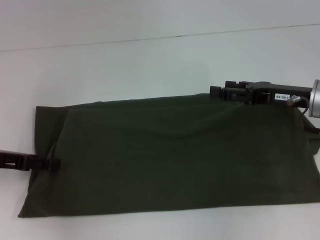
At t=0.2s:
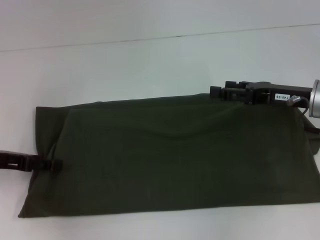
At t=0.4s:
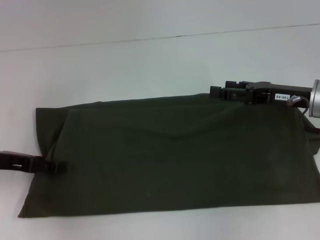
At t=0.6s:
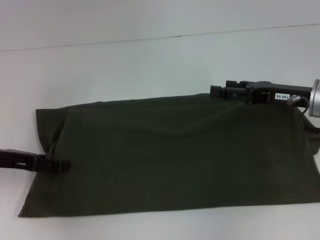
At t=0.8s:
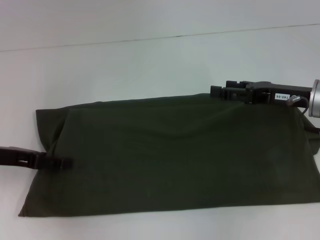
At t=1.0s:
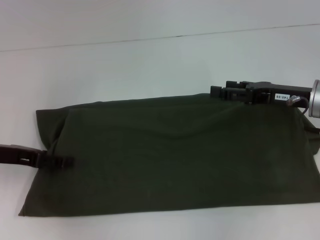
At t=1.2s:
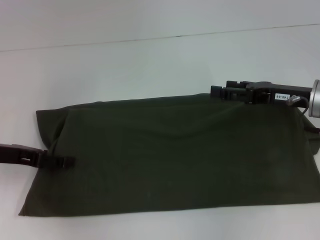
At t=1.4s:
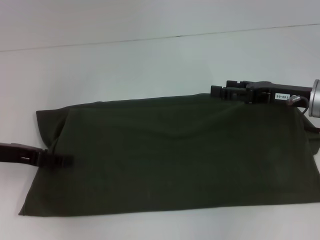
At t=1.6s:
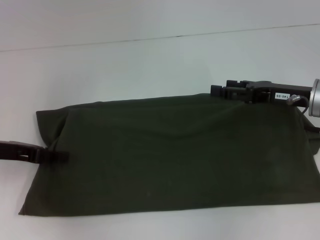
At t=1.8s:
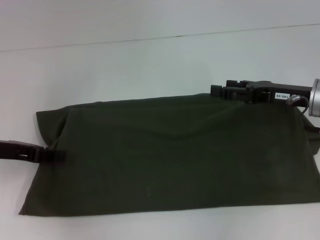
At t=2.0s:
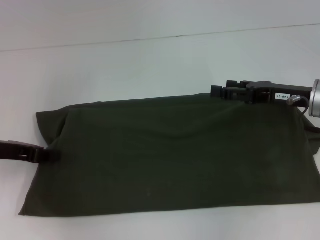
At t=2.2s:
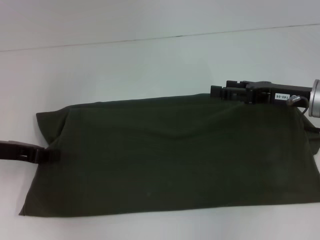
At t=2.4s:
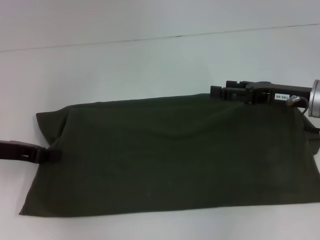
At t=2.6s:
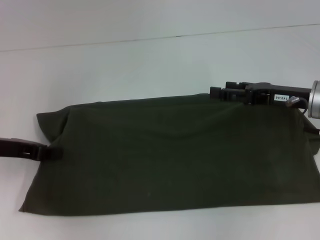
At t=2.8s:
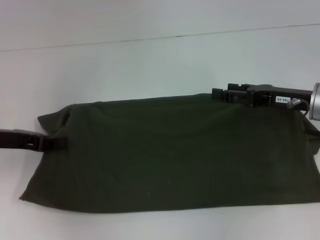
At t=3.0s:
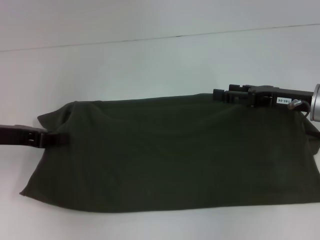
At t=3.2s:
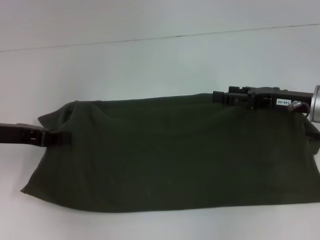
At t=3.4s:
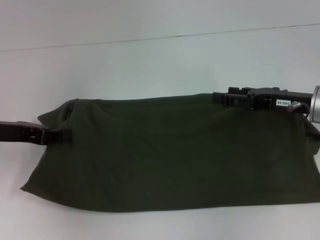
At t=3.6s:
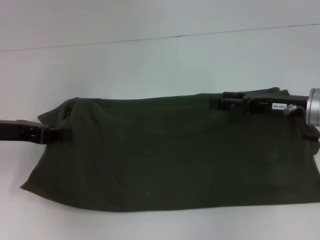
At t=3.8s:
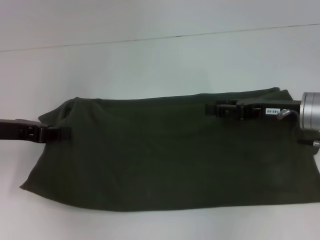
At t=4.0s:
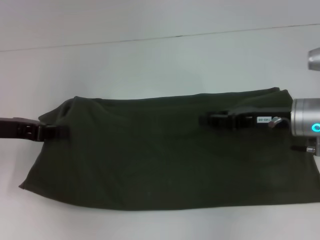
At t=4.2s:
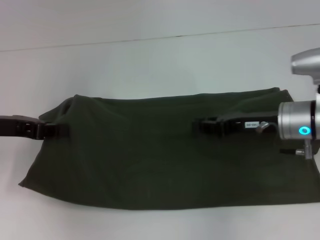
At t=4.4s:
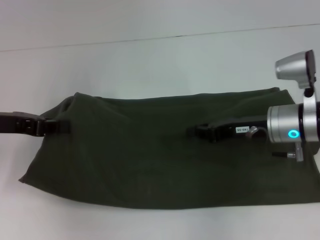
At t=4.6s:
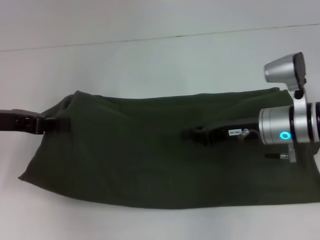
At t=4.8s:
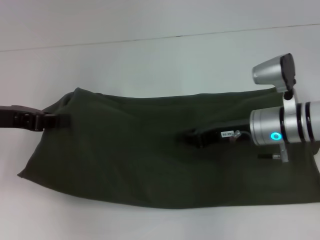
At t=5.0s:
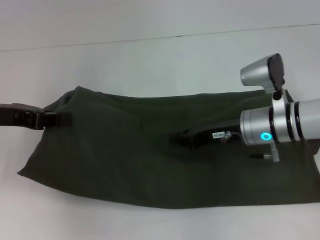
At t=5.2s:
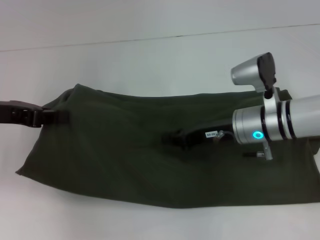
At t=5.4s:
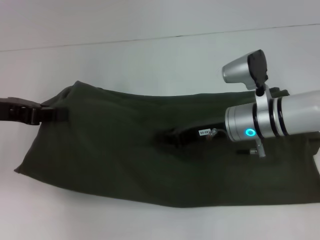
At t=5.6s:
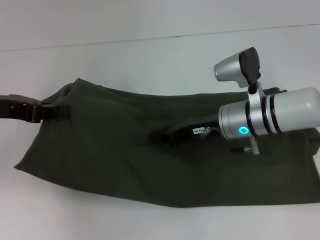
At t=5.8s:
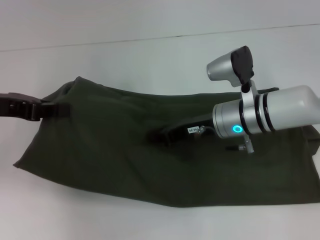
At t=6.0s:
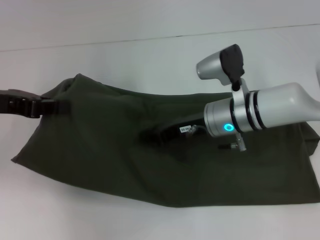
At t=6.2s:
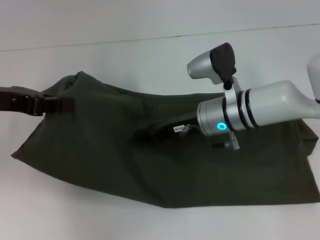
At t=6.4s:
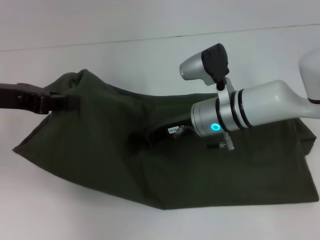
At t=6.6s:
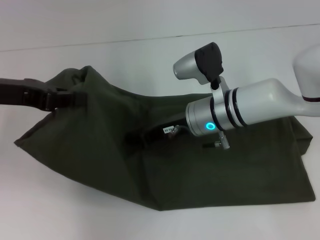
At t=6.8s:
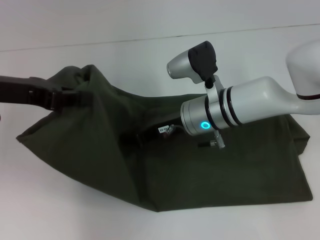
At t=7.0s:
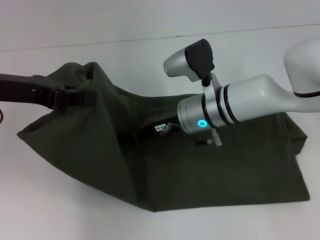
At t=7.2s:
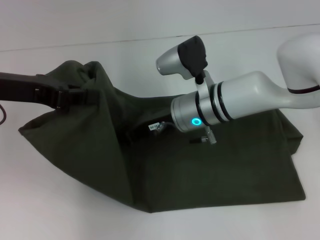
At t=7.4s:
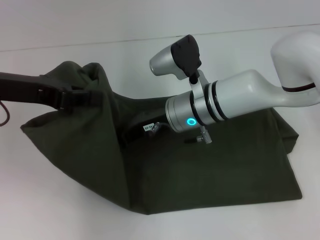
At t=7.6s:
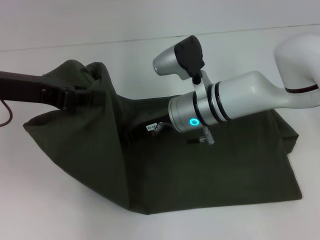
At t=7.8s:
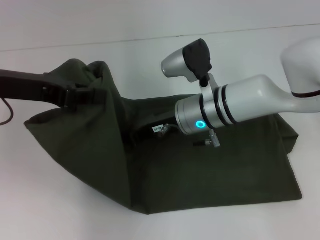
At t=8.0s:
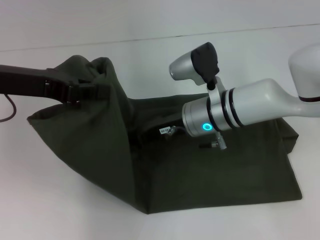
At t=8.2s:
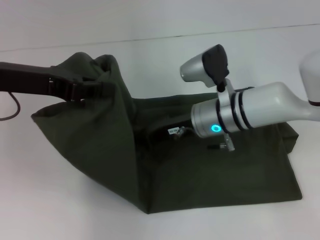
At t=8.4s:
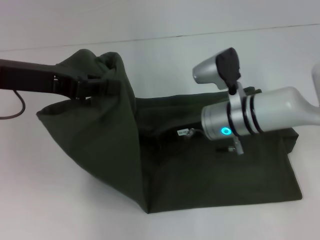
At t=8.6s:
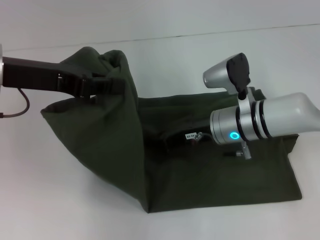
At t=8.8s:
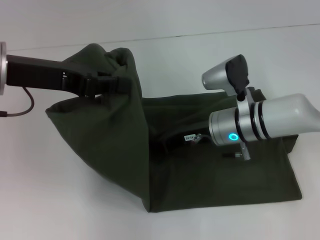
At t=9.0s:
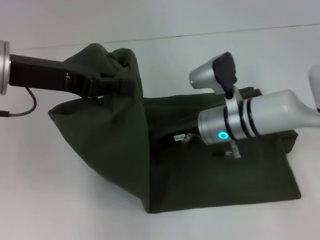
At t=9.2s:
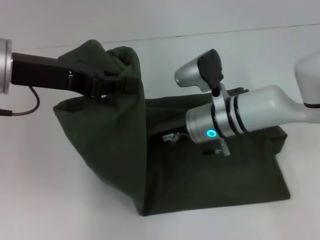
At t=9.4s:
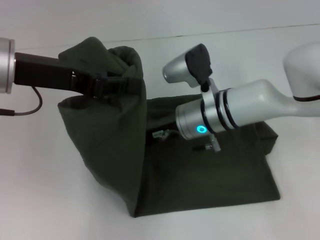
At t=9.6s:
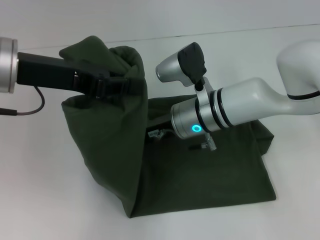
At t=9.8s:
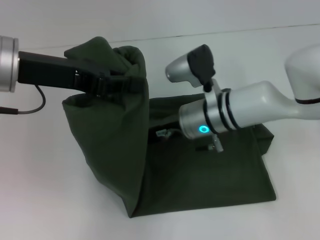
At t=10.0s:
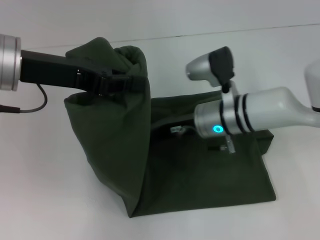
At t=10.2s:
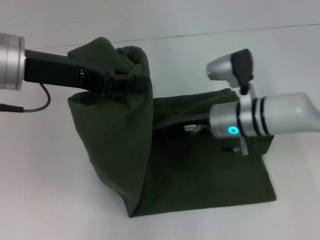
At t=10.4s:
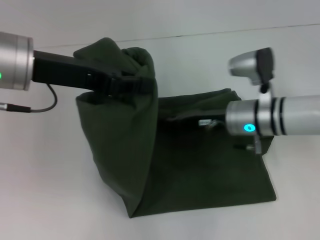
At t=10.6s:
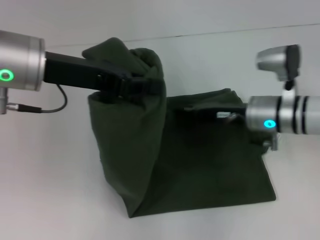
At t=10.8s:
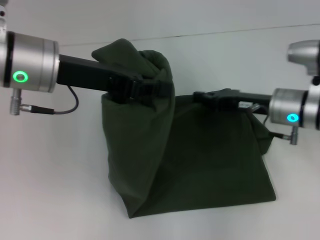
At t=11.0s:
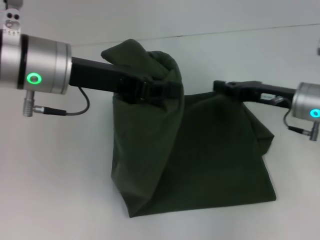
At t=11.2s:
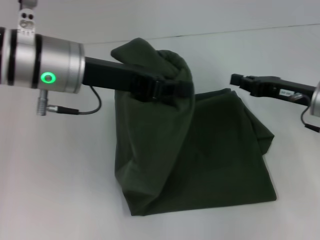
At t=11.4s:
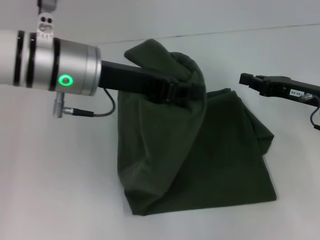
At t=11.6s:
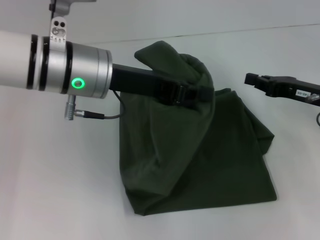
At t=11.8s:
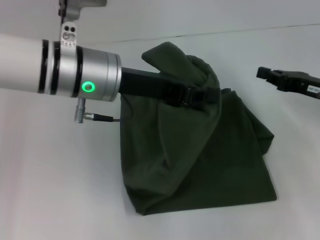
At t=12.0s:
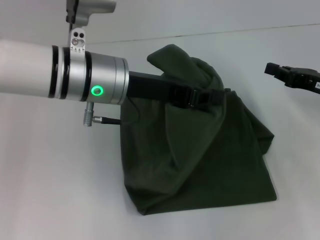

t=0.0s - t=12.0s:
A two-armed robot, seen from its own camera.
t=0.0s - t=1.6s: There are only small adjustments of the grippers.
t=1.6s - t=3.0s: The left gripper closes up.
t=3.0s - t=4.4s: The right gripper heads to the left, covering about 5 cm, and closes its fingers.
t=4.4s - t=6.0s: The right gripper moves to the left, approximately 10 cm.
t=6.0s - t=7.6s: The right gripper goes some 5 cm to the left, while the left gripper shifts by roughly 5 cm.
t=7.6s - t=9.0s: The right gripper shifts by roughly 5 cm.
t=10.4s - t=12.0s: The right gripper is displaced to the right by some 15 cm; the left gripper moves to the right, some 10 cm.

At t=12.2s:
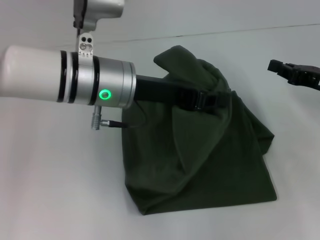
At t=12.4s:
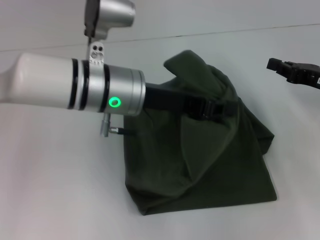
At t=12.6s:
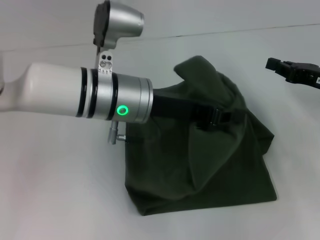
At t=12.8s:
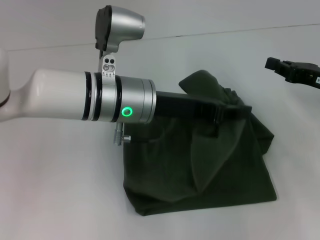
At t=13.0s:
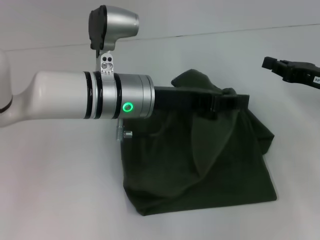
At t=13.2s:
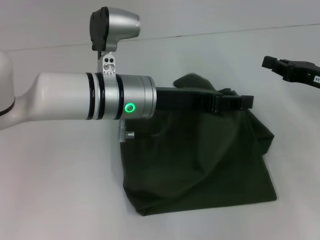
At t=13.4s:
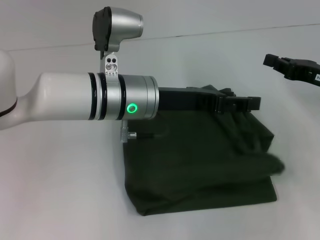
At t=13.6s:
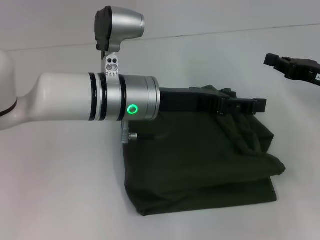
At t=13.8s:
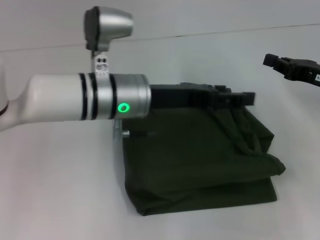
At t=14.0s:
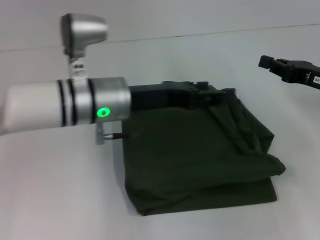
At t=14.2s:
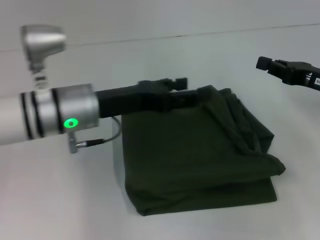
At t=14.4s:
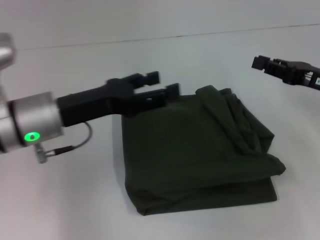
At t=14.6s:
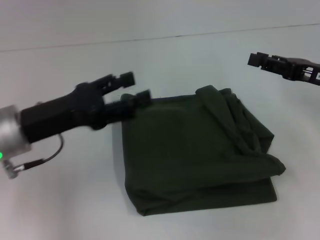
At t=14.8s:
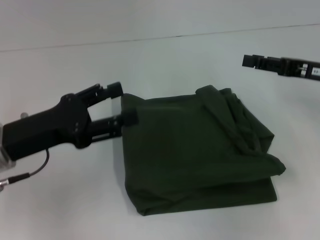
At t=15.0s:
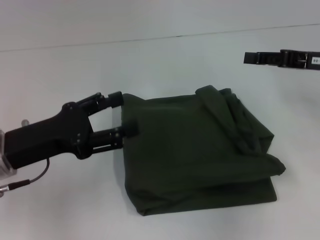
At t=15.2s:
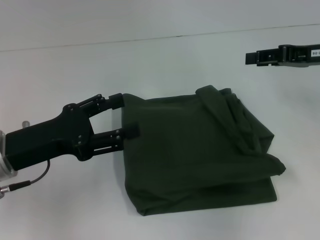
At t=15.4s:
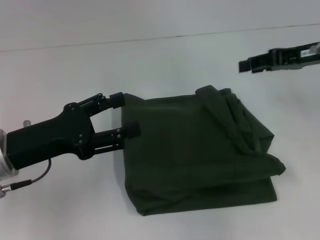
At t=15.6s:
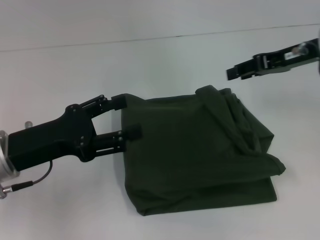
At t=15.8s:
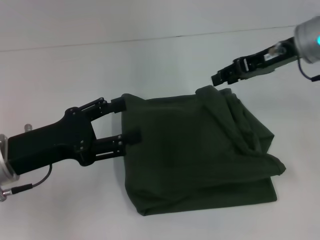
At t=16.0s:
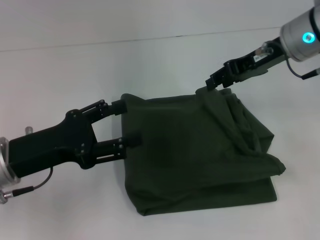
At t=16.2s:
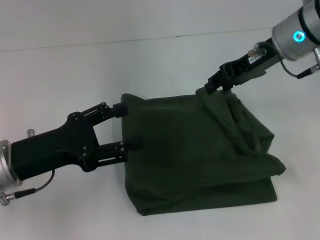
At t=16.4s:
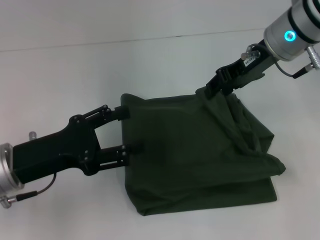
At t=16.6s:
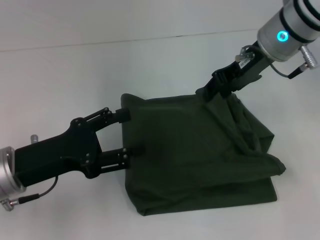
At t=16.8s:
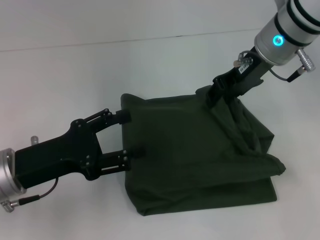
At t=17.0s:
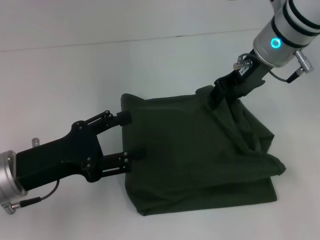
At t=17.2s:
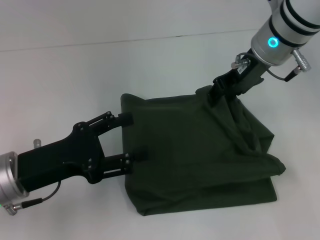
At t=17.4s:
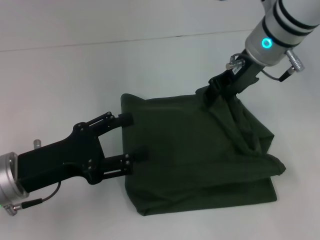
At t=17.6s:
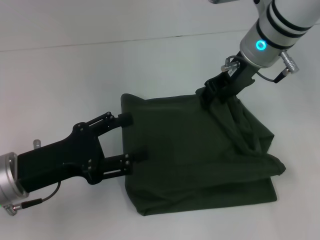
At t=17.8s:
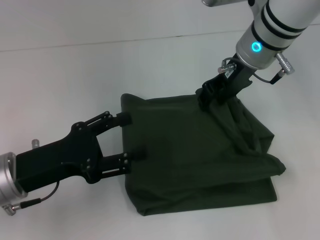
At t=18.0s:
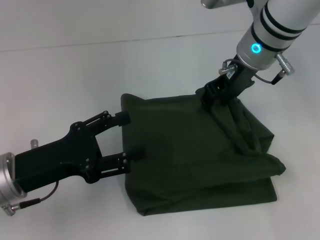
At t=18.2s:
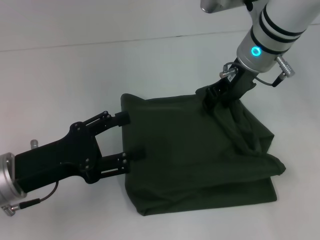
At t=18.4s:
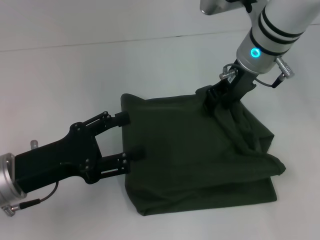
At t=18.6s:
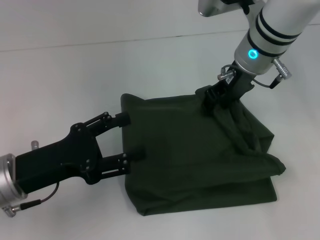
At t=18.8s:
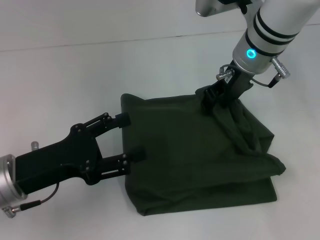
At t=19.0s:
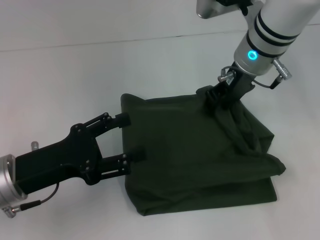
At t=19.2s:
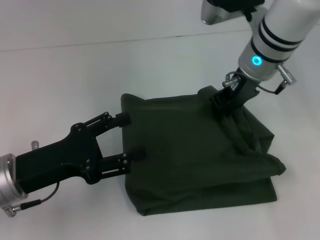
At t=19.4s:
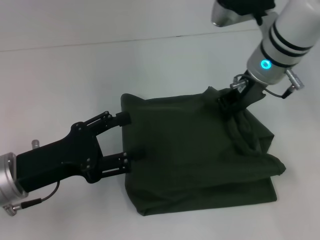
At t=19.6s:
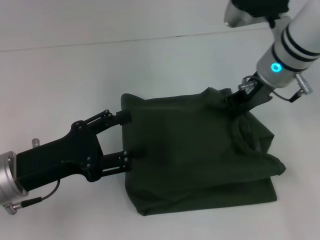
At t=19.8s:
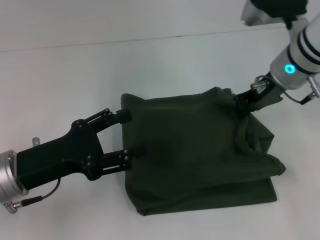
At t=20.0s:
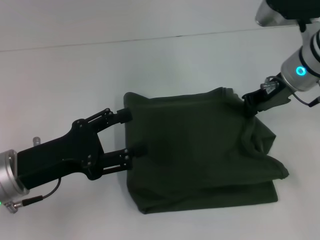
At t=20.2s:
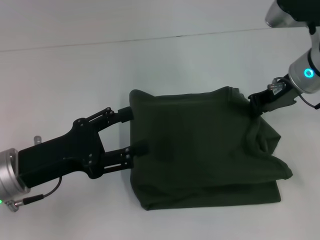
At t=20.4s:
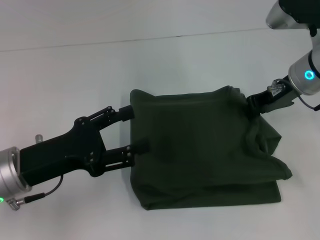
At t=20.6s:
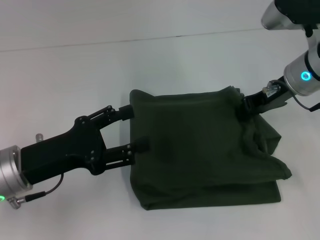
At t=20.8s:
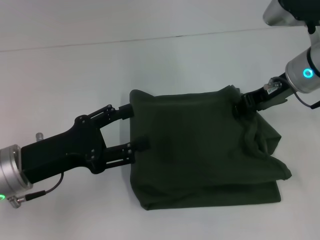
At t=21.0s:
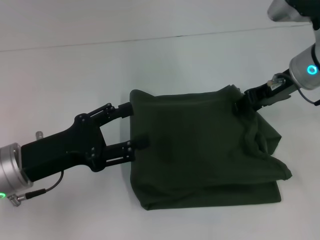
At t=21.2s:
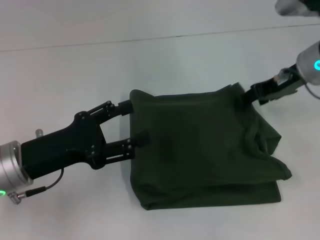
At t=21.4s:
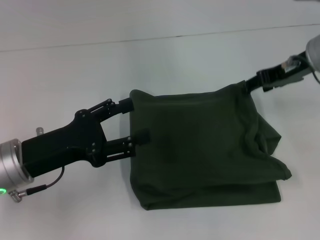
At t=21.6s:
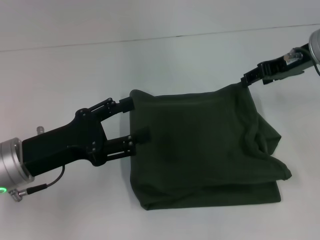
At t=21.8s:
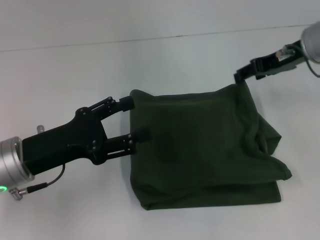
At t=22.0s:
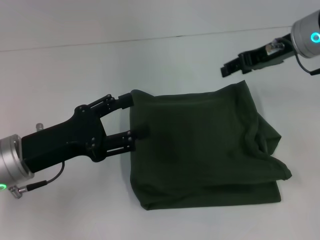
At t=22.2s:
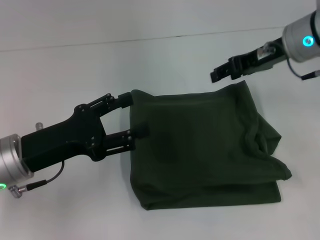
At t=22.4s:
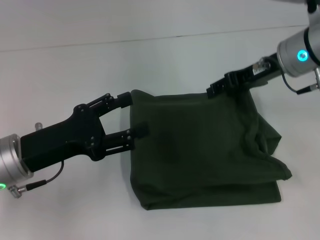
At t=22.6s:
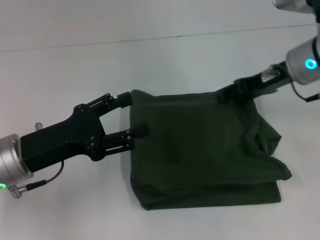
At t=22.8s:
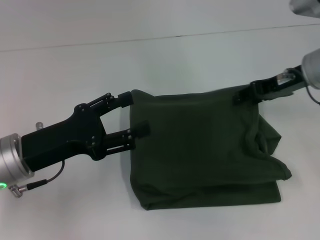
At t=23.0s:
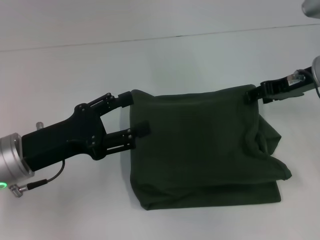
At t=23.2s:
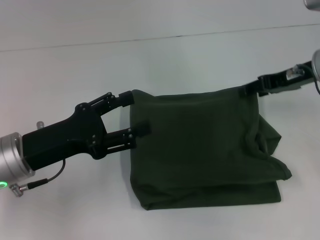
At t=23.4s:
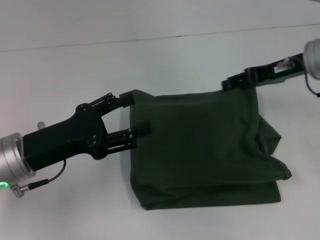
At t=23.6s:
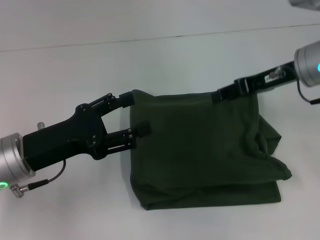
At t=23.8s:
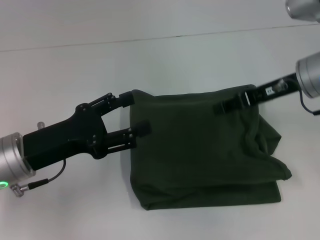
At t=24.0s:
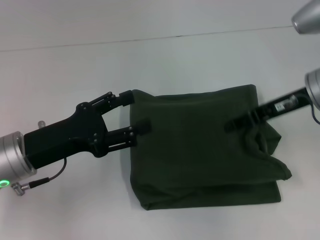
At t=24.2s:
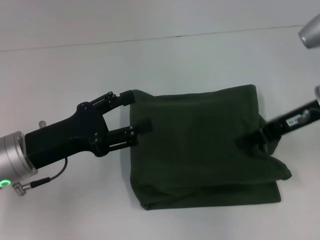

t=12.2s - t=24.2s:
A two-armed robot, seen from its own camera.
t=12.2s - t=13.8s: The left gripper opens.
t=13.8s - t=15.2s: The left gripper travels to the left and backward by some 20 cm. Meanwhile the right gripper travels upward by some 10 cm, and opens.
t=15.2s - t=16.6s: The right gripper heads to the left, covering about 15 cm.
t=16.6s - t=18.2s: The grippers stay close to where they were, moving slightly.
t=18.2s - t=19.8s: The right gripper travels to the right by about 5 cm, and closes up.
t=19.8s - t=21.2s: The right gripper opens its fingers.
t=21.2s - t=22.6s: The grippers move only a little.
t=22.6s - t=24.2s: The right gripper goes approximately 5 cm backward, and closes its fingers.
